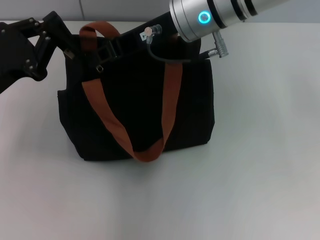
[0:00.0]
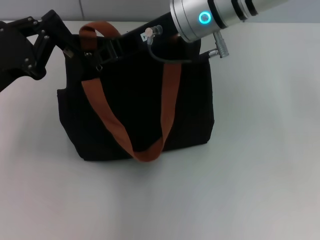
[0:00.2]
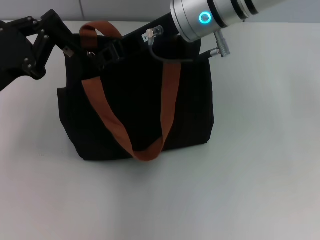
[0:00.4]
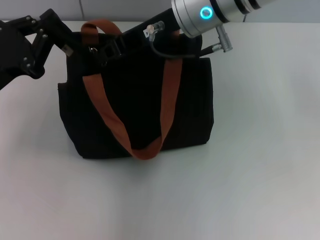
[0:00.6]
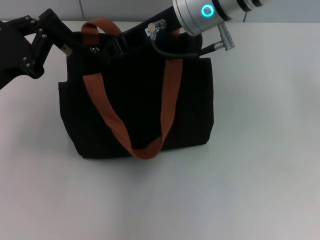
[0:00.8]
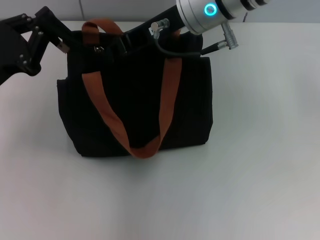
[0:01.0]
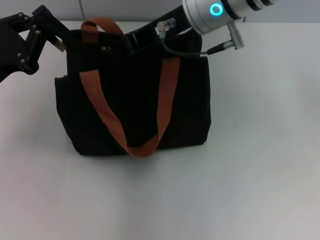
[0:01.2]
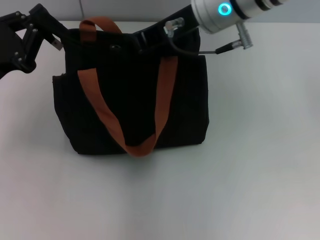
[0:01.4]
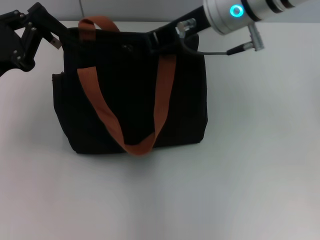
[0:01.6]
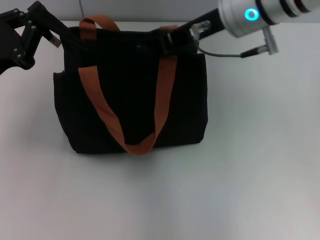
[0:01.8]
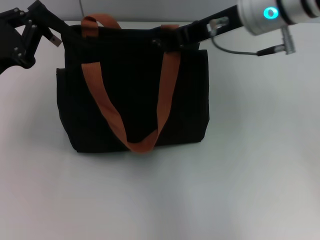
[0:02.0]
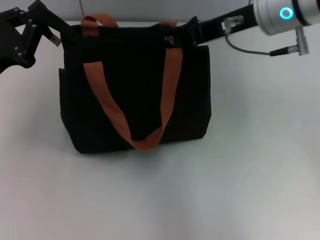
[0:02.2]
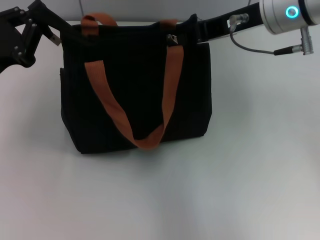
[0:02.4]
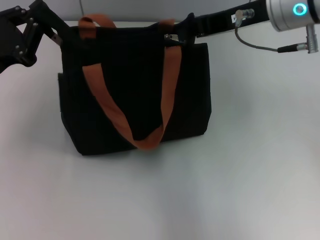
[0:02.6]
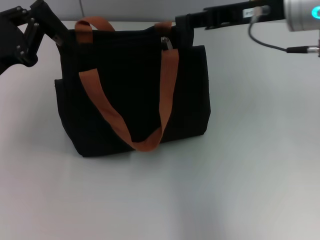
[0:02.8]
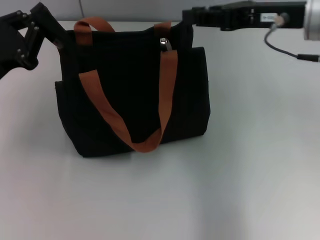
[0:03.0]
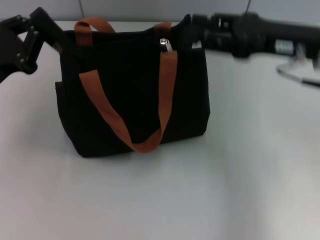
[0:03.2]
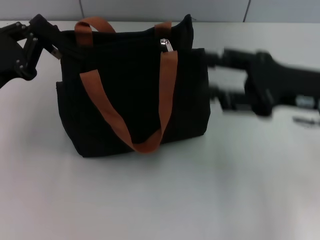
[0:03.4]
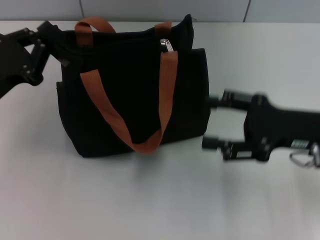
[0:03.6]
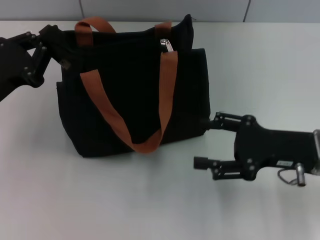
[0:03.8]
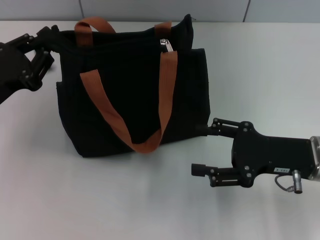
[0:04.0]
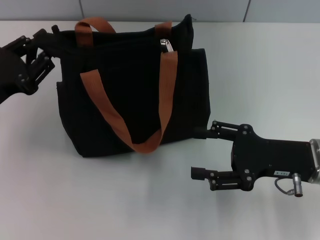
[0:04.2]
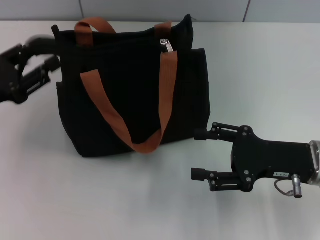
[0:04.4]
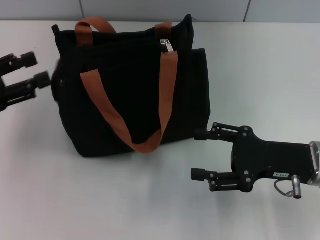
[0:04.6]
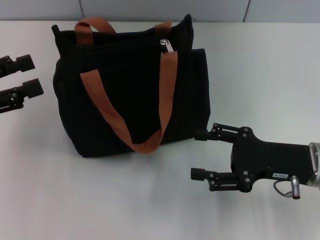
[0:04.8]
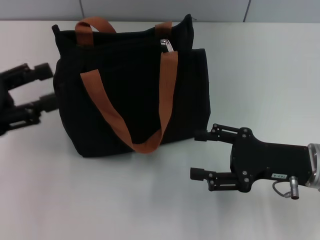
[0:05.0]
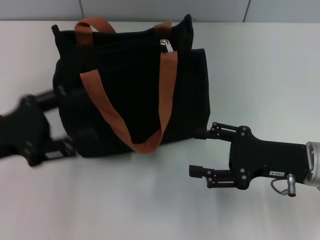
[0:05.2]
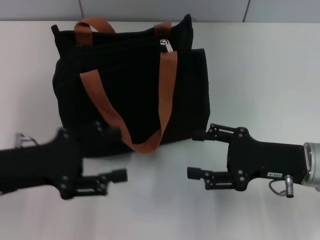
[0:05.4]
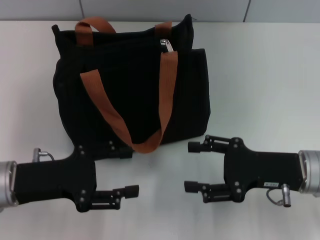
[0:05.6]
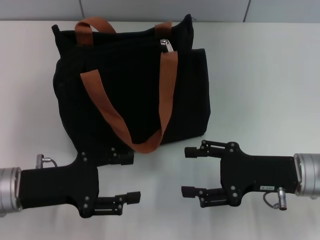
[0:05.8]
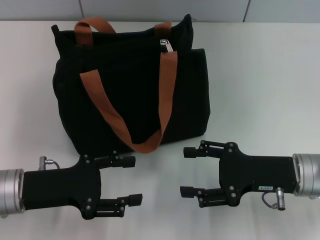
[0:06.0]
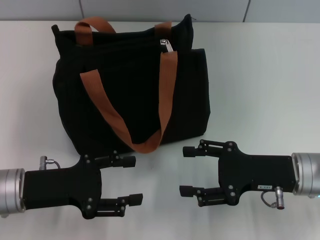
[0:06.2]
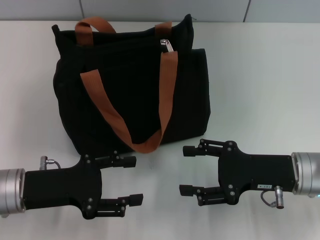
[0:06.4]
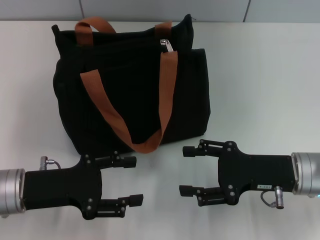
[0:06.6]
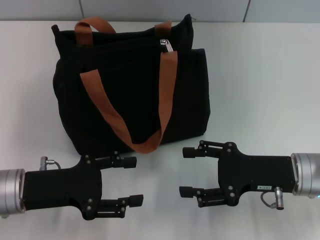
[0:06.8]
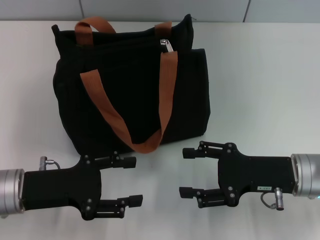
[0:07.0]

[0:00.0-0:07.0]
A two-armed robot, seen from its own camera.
Step, 0:00.0 to 0:02.6: Pull up the zipper with your right hand.
Step, 0:02.8 to 0:04.8: Grab the zipper with your left hand.
0:00.0 to 0:01.4: There are only small adjustments of the grippers.
0:01.4 to 0:02.8: The right gripper travels to the right by some 10 cm.
0:02.8 to 0:04.2: The right gripper shifts about 20 cm downward and backward, and opens.
0:04.2 to 0:05.6: The left gripper shifts by approximately 5 cm, and opens.
0:05.6 to 0:07.0: The grippers stay close to where they were, moving slightly.

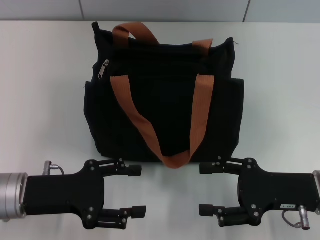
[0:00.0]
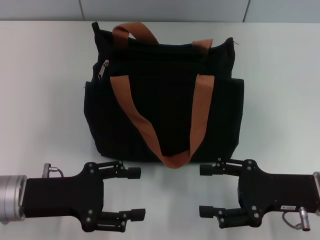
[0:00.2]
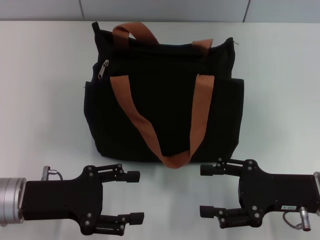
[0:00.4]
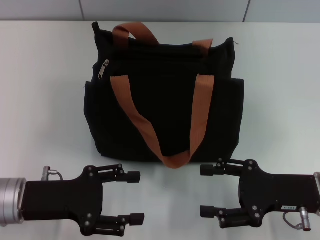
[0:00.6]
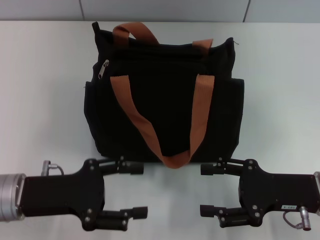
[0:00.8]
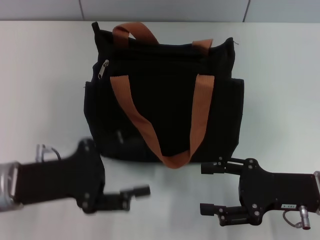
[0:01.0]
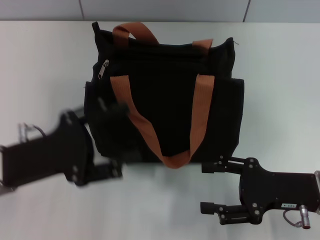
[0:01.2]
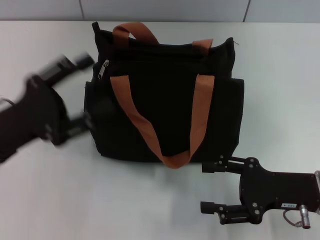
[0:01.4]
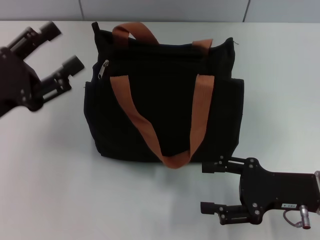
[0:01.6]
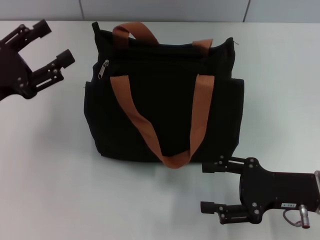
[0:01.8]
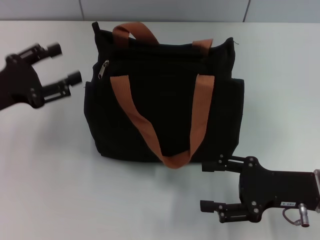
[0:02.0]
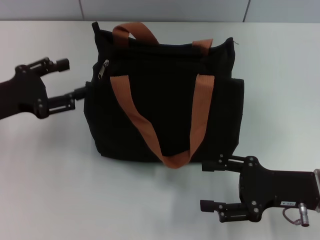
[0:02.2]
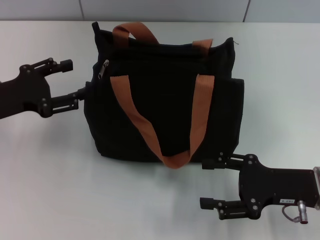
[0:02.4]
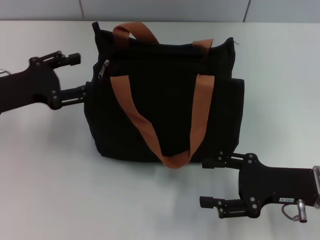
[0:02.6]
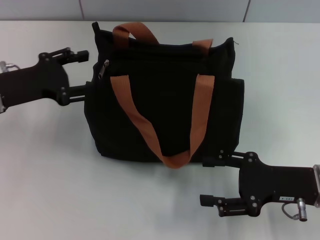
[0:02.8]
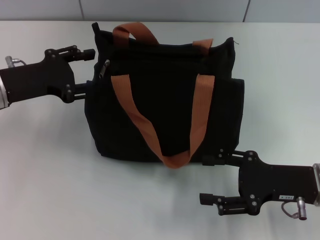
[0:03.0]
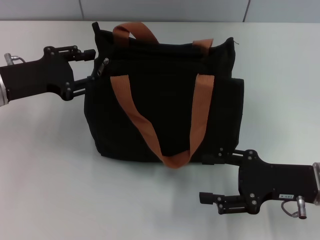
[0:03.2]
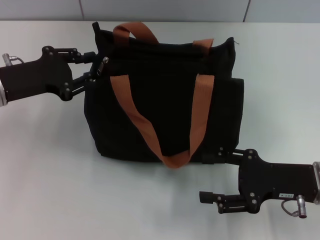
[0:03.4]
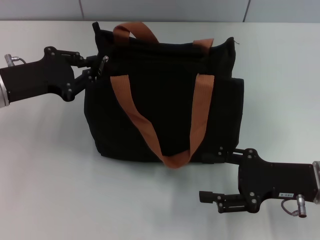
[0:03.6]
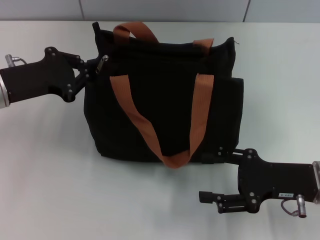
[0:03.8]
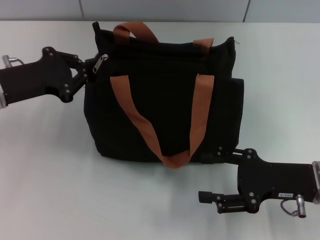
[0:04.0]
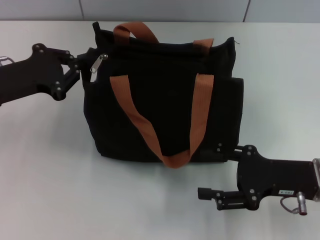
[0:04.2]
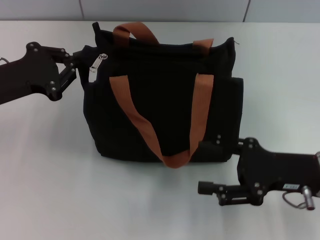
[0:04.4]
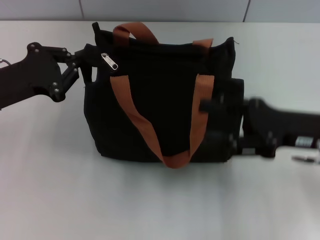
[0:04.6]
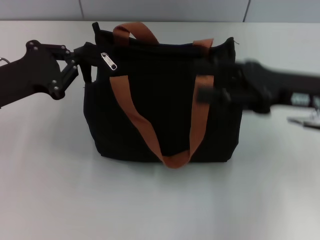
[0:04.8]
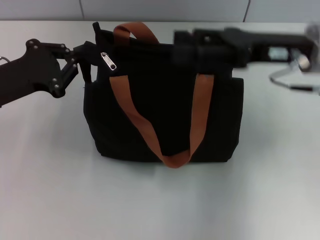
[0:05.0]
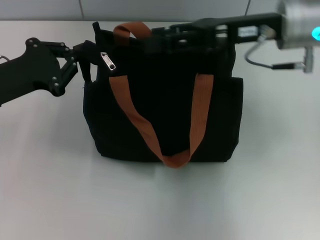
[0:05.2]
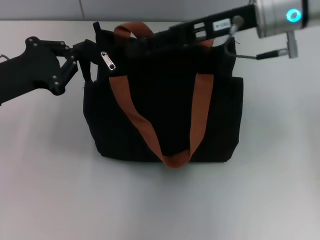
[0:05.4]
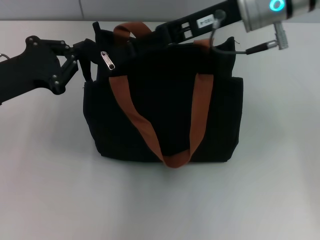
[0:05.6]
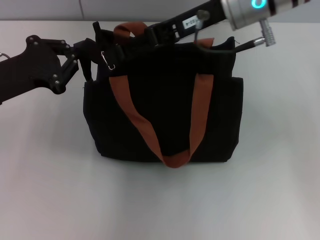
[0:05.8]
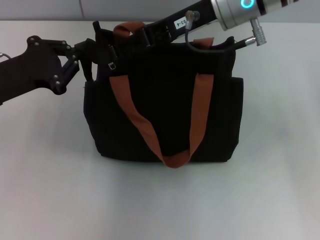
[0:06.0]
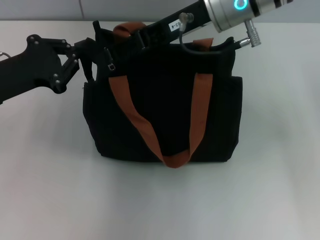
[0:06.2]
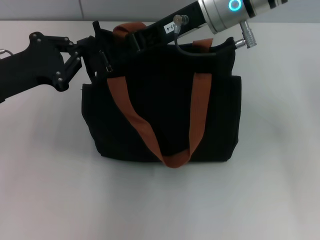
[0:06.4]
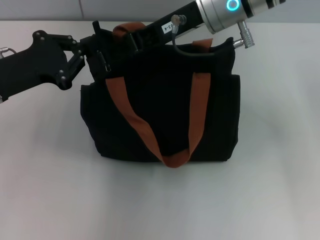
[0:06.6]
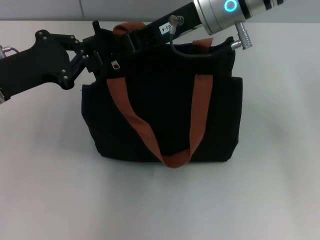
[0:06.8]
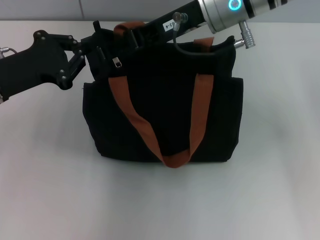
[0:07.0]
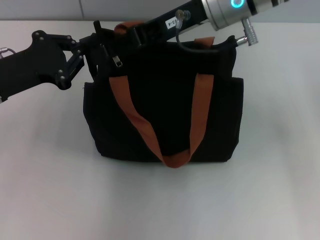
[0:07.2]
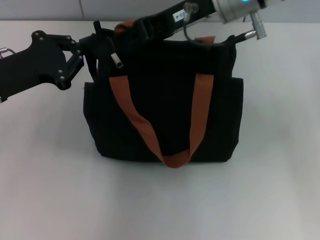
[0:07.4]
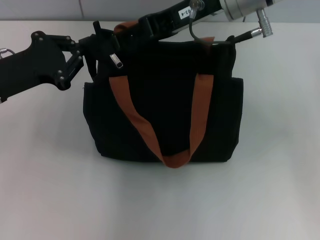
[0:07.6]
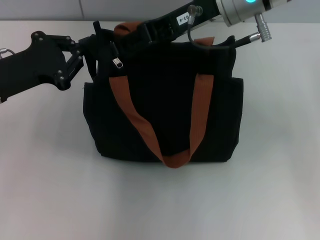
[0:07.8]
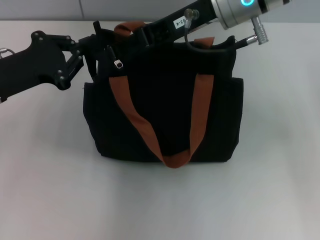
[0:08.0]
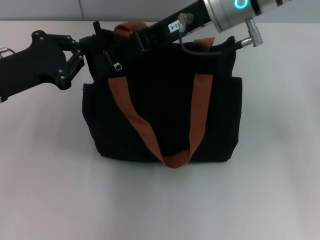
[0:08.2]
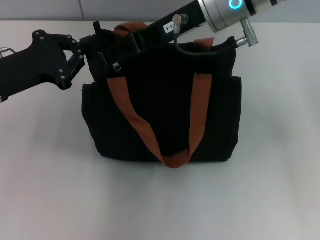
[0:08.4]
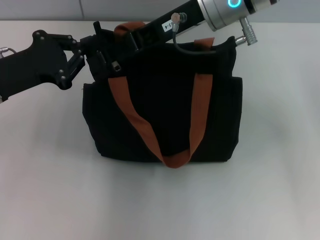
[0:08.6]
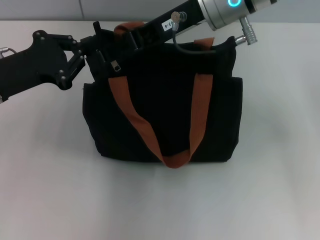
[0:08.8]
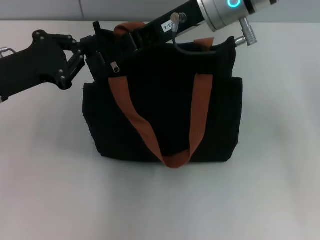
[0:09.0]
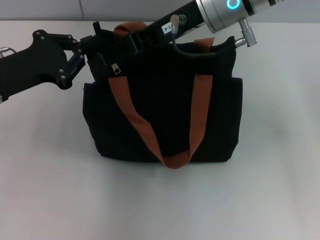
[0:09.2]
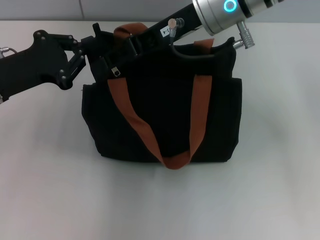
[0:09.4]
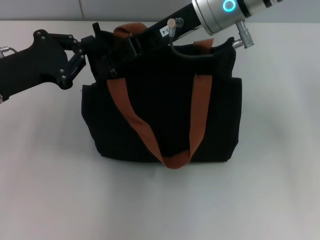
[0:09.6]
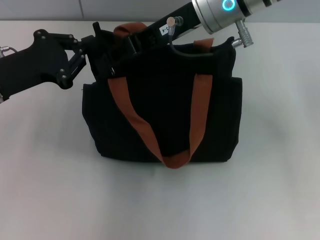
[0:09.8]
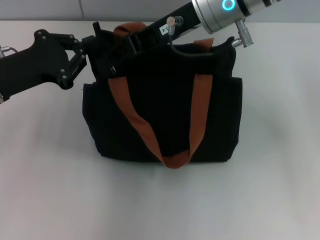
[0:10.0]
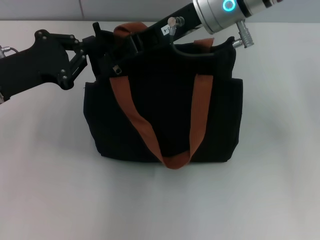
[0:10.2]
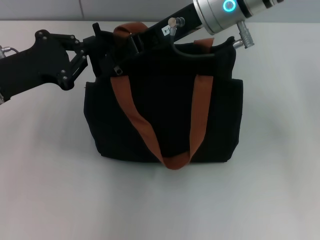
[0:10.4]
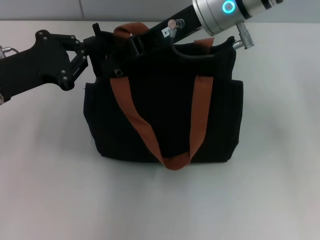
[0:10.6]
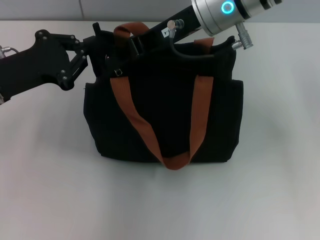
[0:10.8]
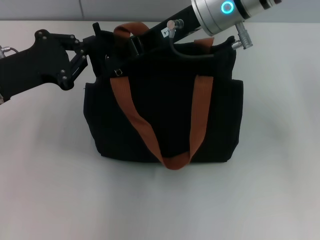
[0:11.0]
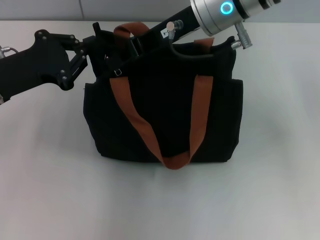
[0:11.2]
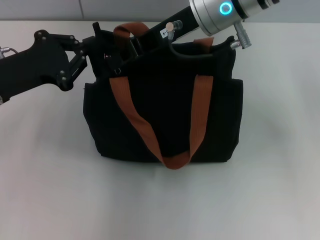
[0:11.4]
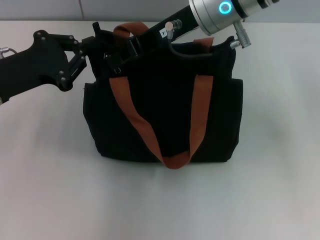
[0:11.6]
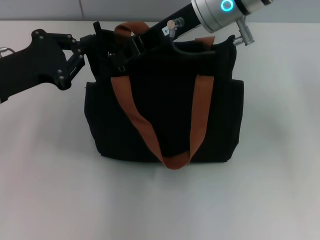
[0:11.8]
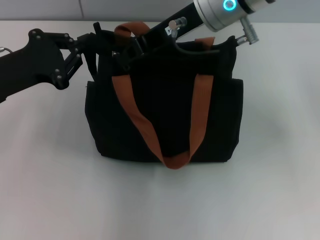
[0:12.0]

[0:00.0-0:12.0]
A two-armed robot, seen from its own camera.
0:00.0 to 0:01.6: The left gripper travels upward by some 5 cm.
0:01.6 to 0:03.0: The left gripper moves forward, approximately 10 cm.
0:03.0 to 0:04.4: The left gripper closes.
0:04.4 to 0:06.0: The right gripper shifts about 25 cm upward, forward and to the left.
0:06.0 to 0:09.0: The grippers make only small movements.
0:09.0 to 0:10.4: The right gripper closes its fingers.
0:10.4 to 0:12.0: The right gripper closes its fingers.

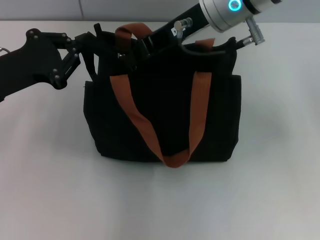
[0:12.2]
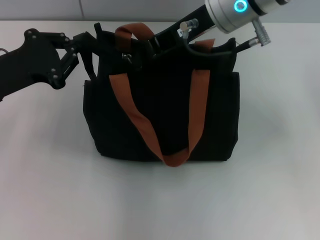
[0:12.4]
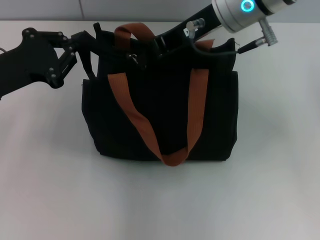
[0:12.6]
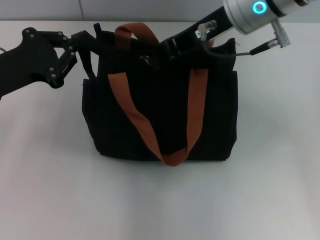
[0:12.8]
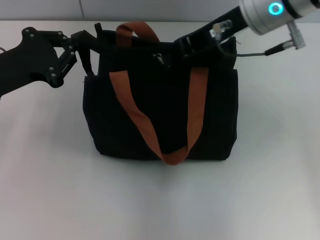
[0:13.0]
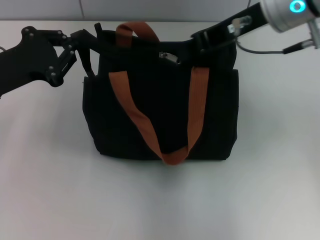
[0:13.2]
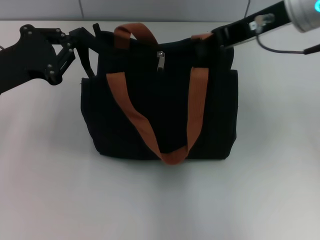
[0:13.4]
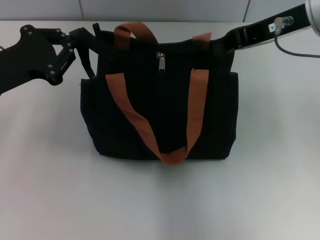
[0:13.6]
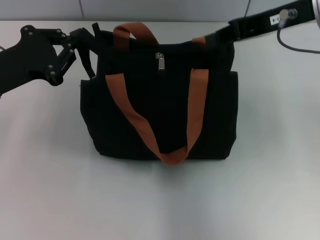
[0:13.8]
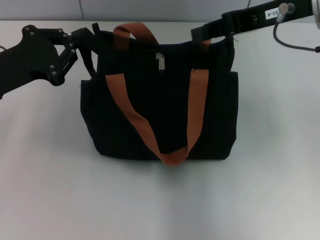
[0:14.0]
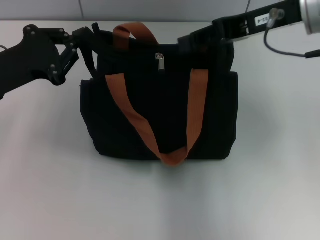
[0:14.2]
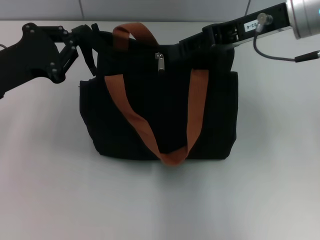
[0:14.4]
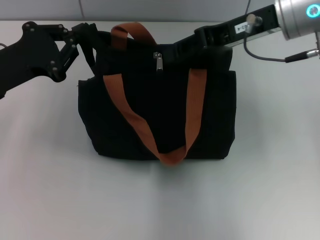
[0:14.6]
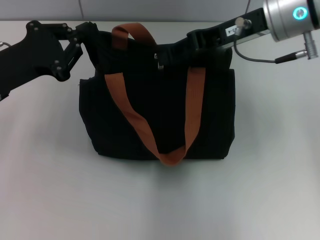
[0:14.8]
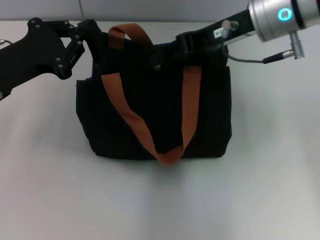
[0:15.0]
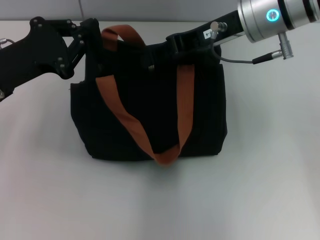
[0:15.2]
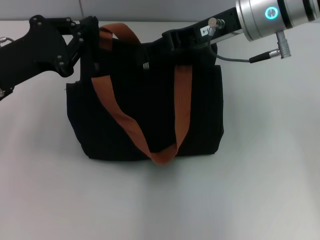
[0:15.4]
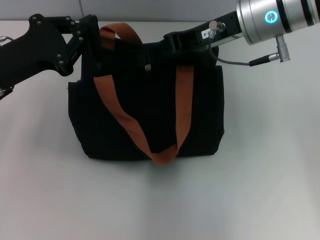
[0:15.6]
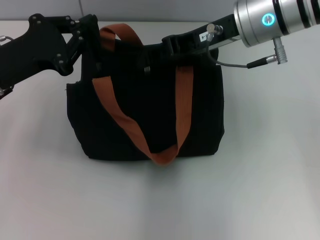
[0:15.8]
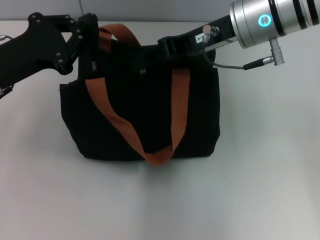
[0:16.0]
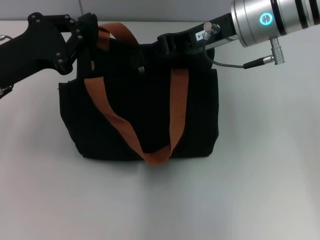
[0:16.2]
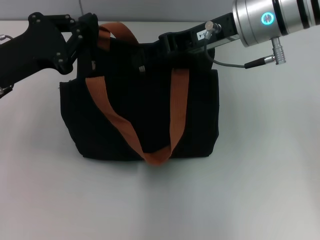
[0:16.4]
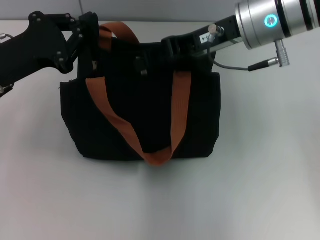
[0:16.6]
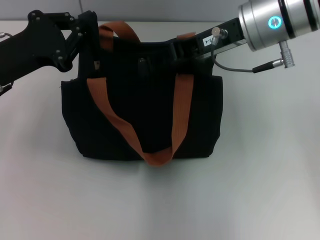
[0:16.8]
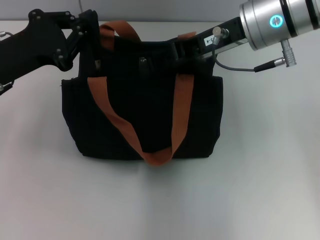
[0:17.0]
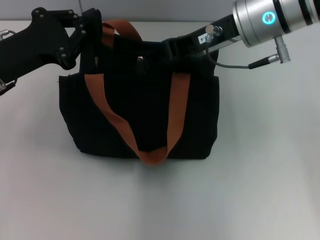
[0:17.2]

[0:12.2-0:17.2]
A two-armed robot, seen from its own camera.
0:12.2 to 0:13.8: The right gripper heads to the right, covering approximately 10 cm.
0:13.8 to 0:15.6: The right gripper heads to the left, covering roughly 5 cm, and opens its fingers.
0:15.6 to 0:17.2: Neither gripper changes place.
